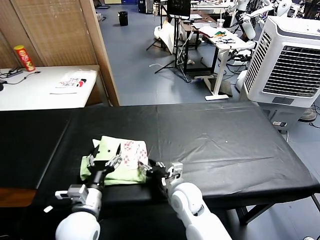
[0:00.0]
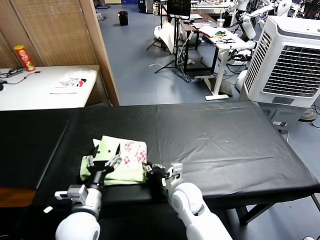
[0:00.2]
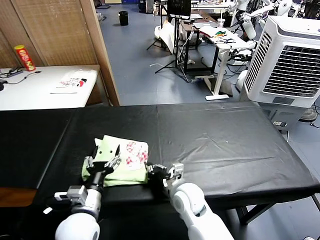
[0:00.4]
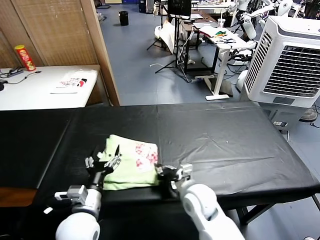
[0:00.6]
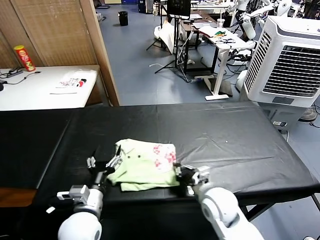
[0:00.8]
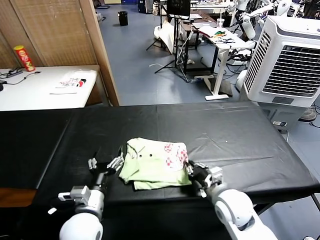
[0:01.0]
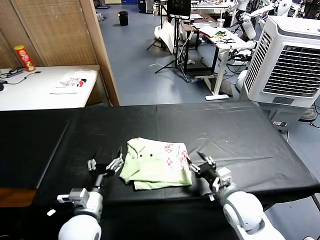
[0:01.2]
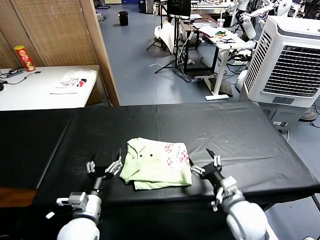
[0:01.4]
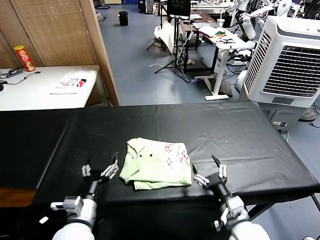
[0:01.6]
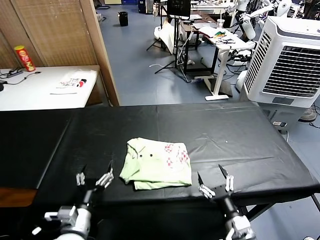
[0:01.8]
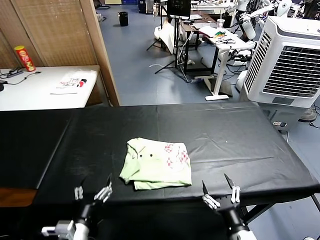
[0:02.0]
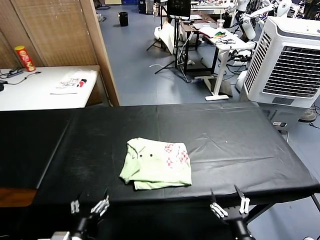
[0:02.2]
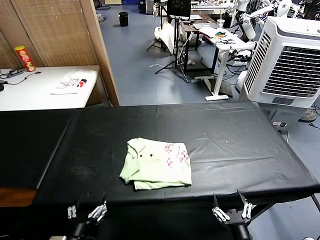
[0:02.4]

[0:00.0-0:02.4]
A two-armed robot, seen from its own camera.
Task of the whole recording: fold and organize the clothes.
0:00.0 to 0:01.2: The right gripper goes about 15 cm to the right, and closes and opens again.
0:01.2 to 0:02.4: The right gripper travels backward by roughly 20 cm, and opens up; the left gripper travels backward by about 10 cm.
